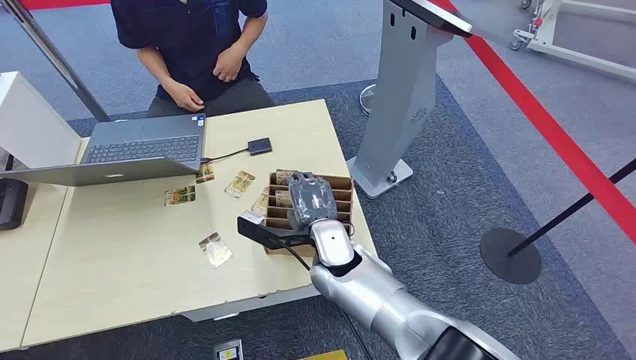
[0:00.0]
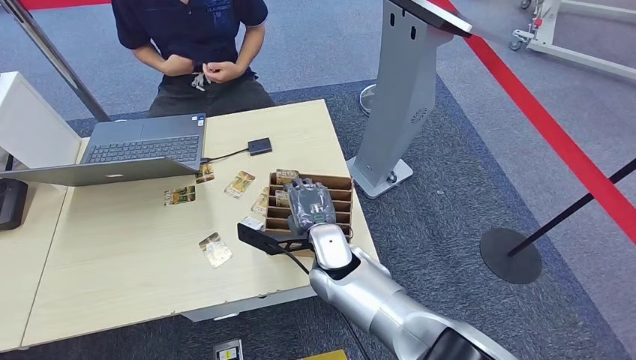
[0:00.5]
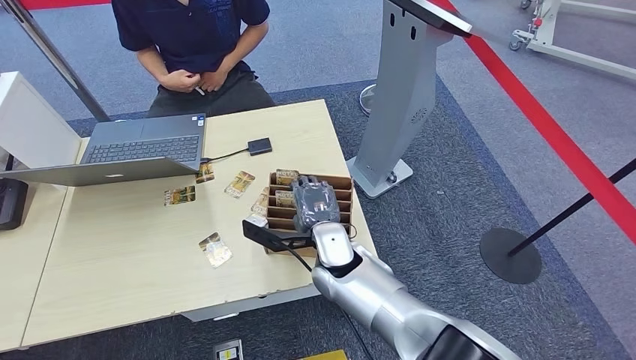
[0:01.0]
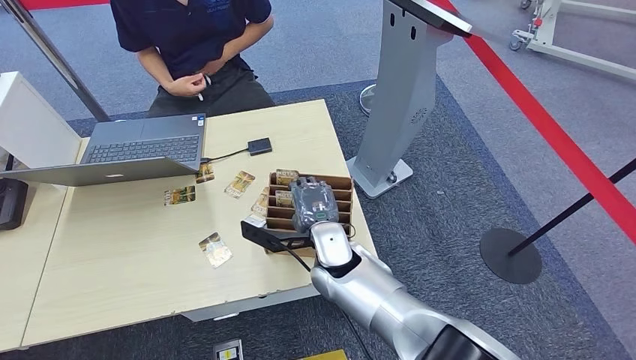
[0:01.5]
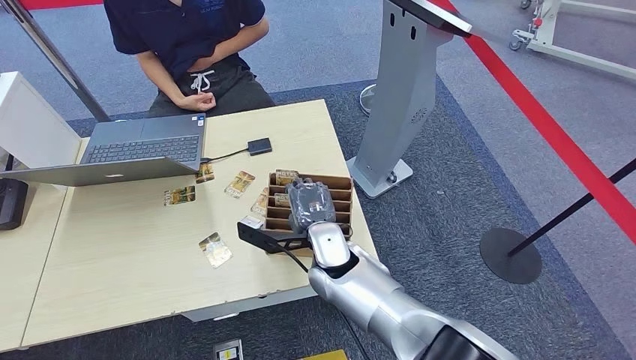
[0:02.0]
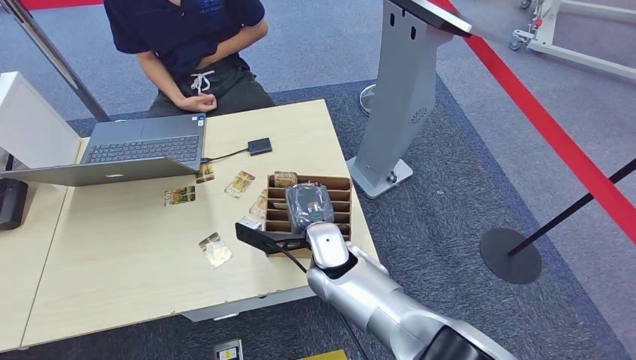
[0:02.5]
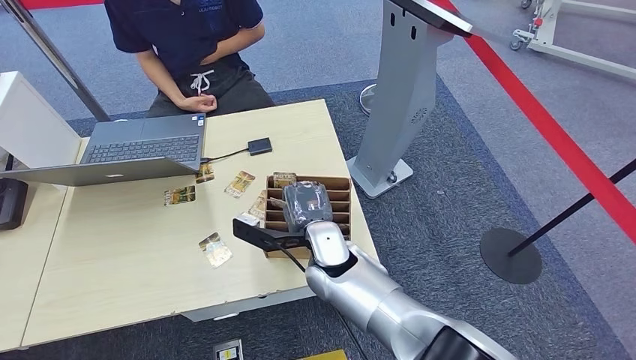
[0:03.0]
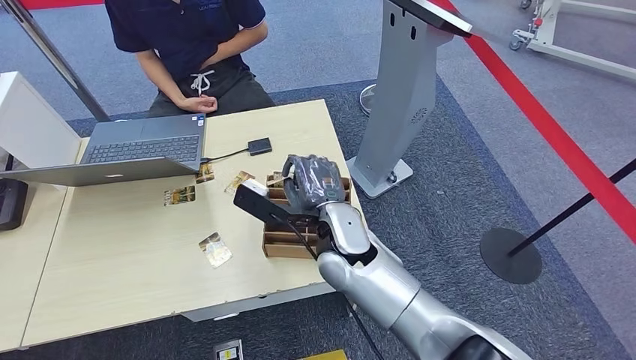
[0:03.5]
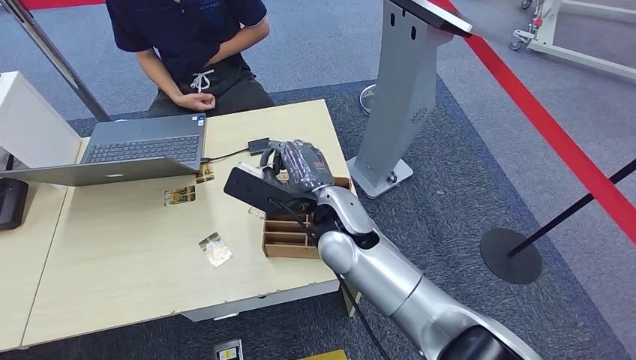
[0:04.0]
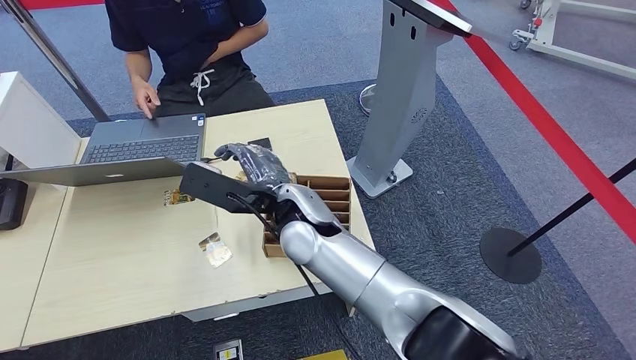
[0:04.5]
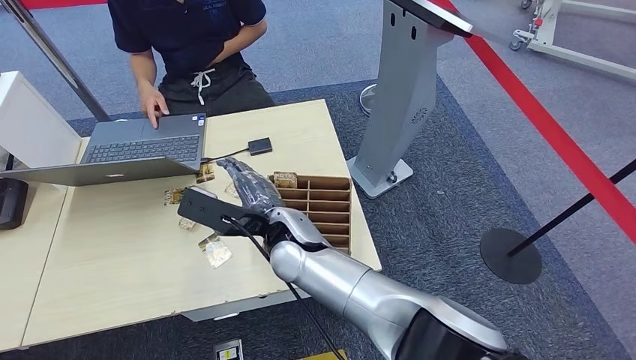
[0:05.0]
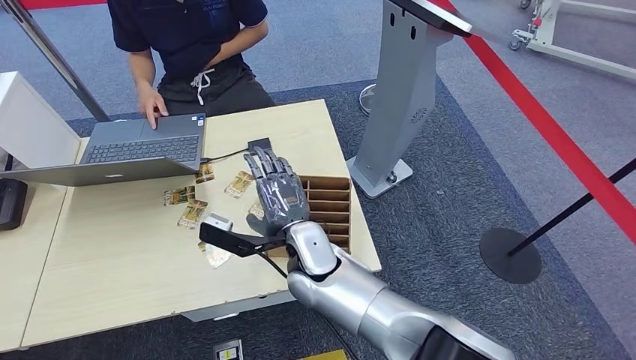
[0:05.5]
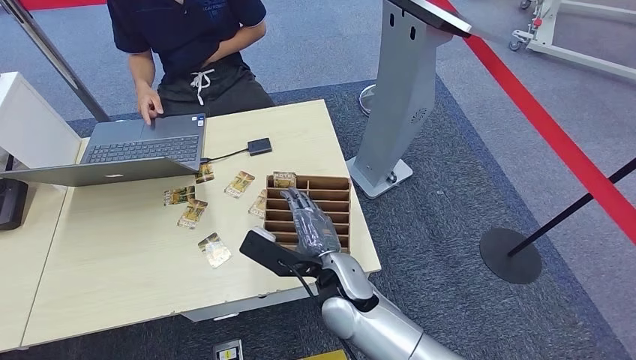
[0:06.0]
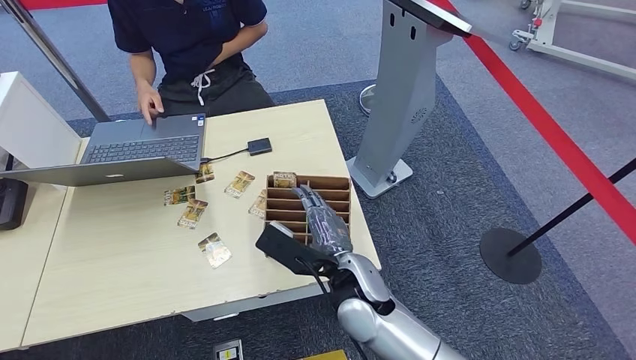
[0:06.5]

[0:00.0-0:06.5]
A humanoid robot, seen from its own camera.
Step, 0:00.0 to 0:04.0: Pick up the key card from the card box.
Step, 0:04.5 to 0:06.5: Hand the key card to the target.
0:02.0 to 0:04.5: The right hand travels upward by about 10 cm.
0:04.5 to 0:06.5: The right hand travels downward, to the right and backward by some 15 cm.
